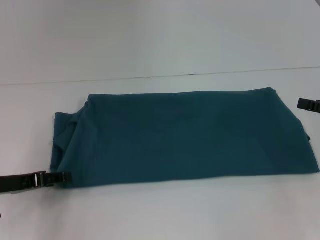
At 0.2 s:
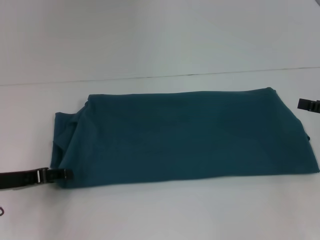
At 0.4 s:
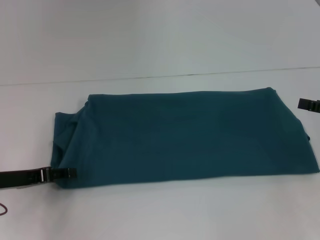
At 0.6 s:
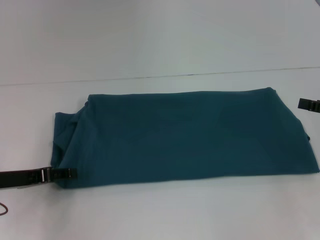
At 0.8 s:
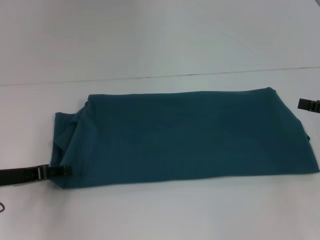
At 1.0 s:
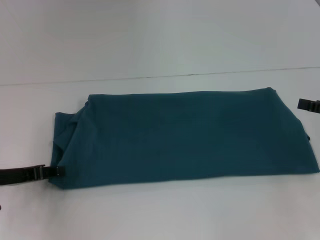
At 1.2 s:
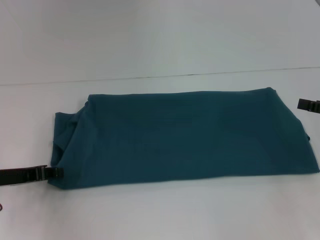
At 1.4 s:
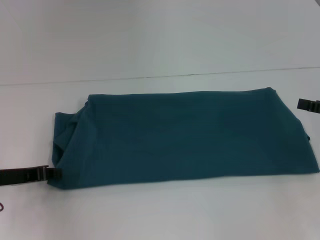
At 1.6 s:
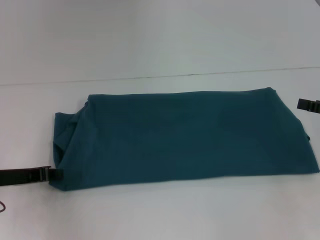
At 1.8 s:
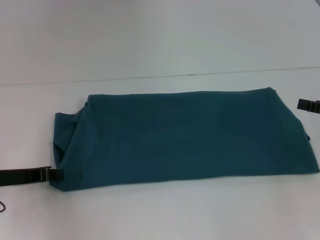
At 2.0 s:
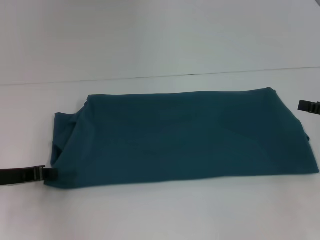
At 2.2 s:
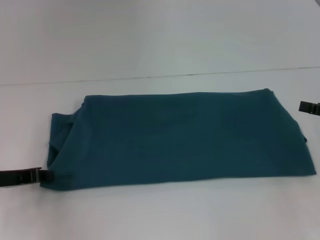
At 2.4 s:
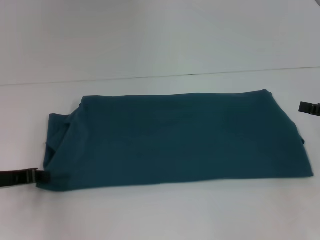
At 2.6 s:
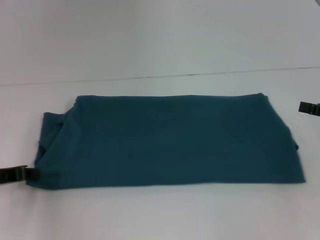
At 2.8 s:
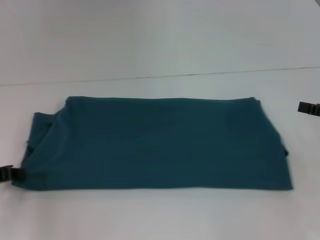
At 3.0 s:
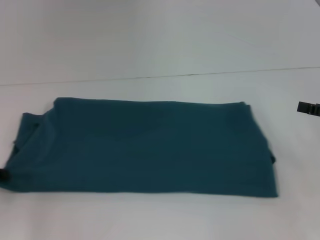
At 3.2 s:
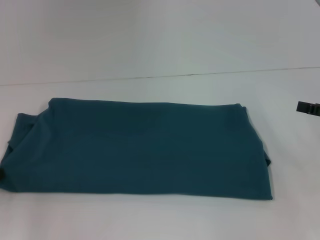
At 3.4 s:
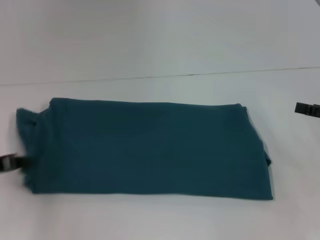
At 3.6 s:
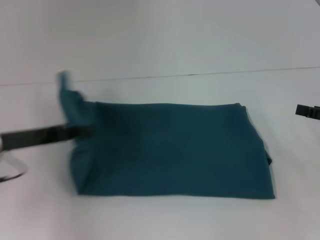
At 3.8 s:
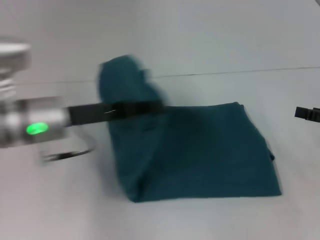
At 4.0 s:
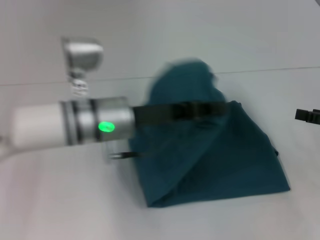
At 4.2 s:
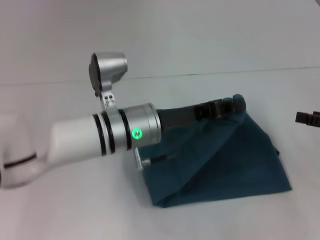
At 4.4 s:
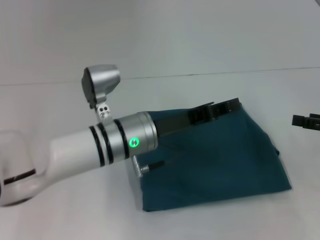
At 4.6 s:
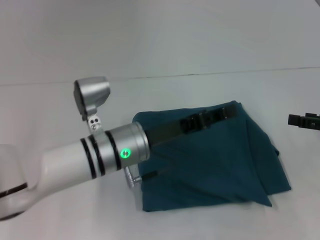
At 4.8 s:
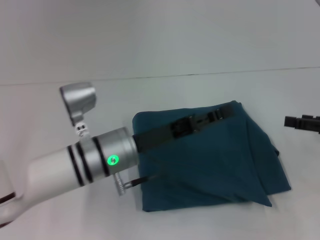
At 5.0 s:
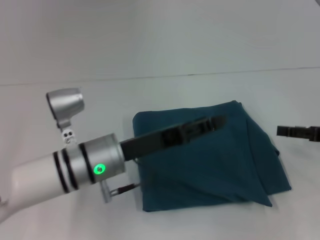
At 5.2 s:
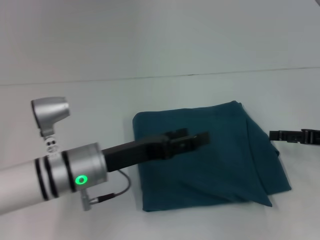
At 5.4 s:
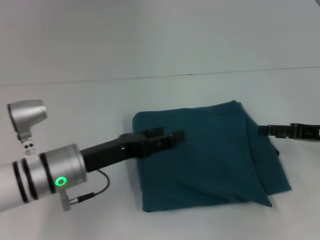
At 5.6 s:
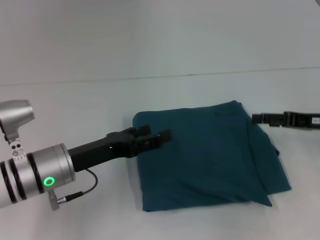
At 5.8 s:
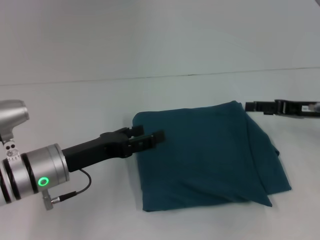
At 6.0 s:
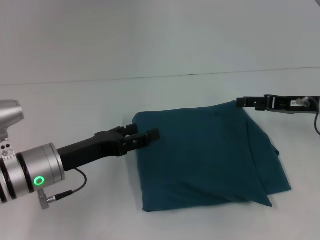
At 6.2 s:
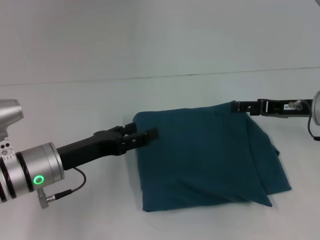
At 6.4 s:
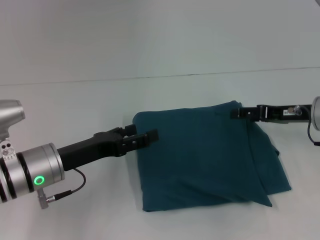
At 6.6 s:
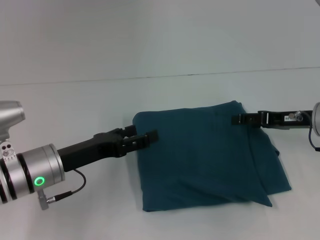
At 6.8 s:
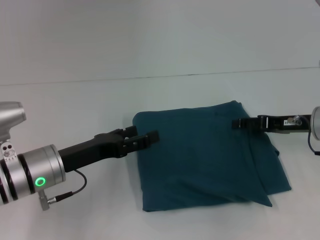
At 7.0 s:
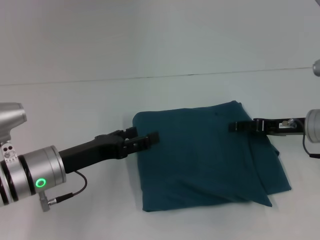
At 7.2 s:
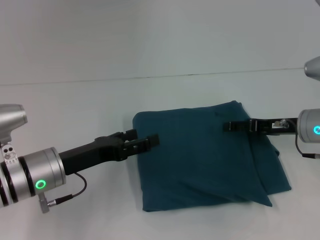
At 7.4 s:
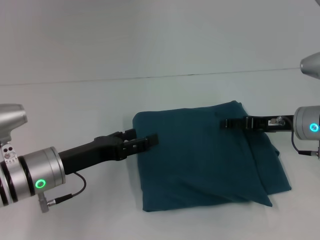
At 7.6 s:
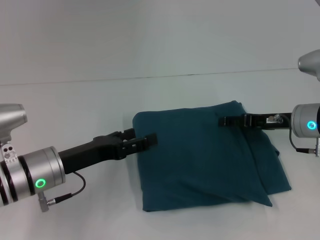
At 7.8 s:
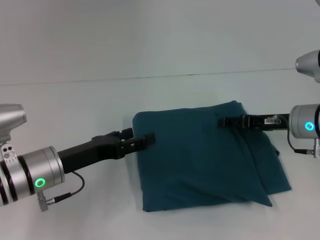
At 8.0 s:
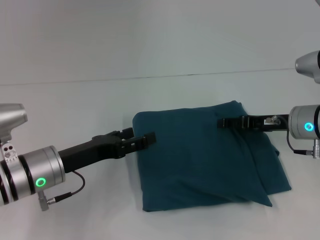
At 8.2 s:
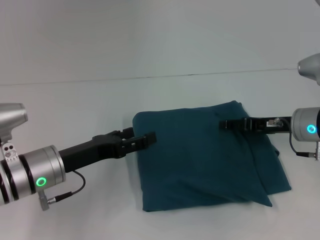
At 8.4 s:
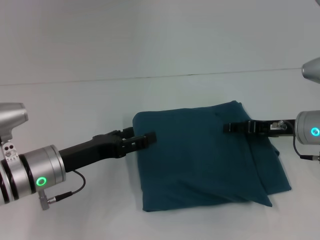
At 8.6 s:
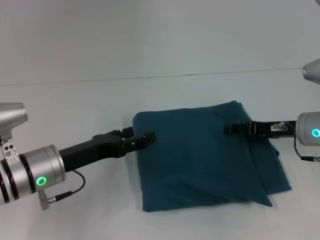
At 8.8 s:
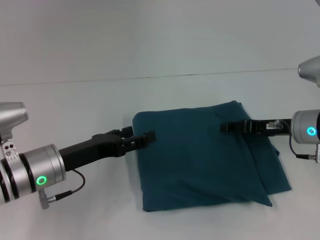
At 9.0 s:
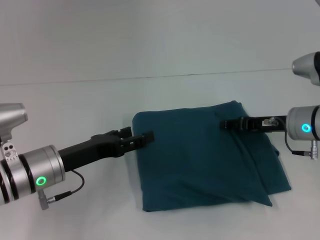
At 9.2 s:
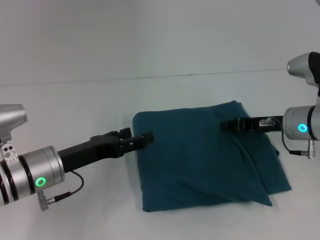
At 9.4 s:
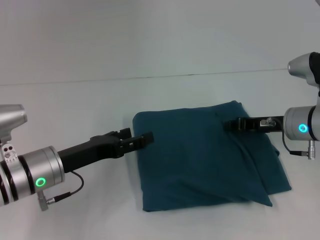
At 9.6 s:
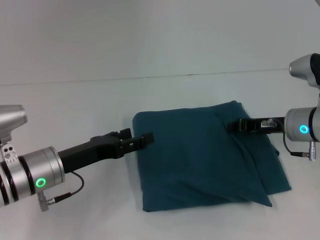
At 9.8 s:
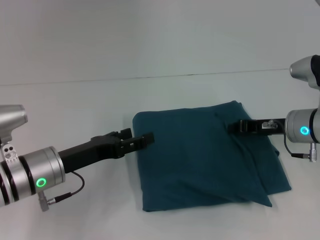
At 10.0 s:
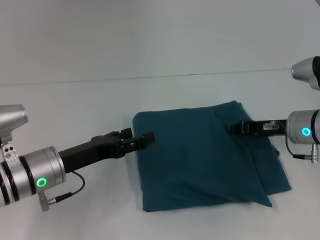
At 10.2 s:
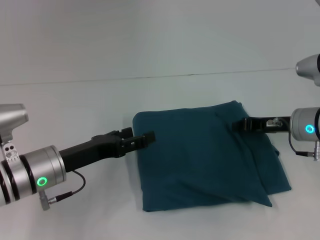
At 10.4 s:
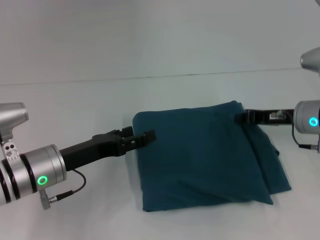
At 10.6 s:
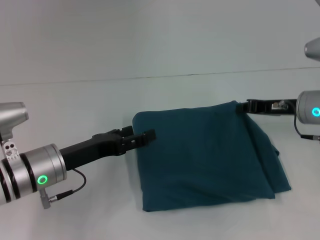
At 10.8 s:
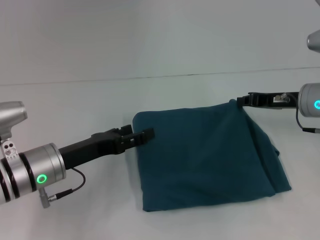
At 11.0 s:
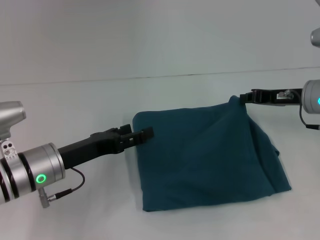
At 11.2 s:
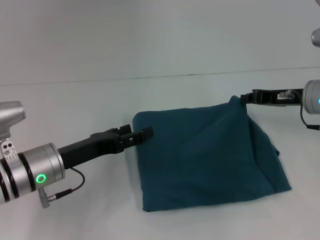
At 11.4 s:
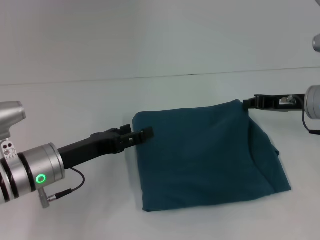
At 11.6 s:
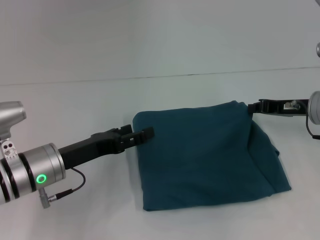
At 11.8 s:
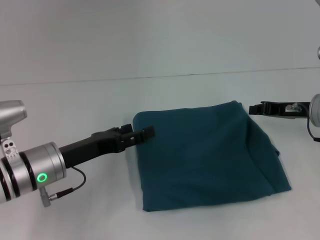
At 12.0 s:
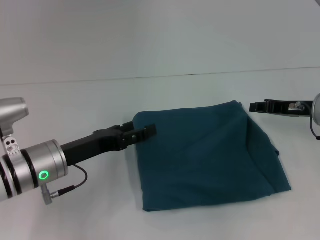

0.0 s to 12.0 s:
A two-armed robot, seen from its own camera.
Step, 0.0 to 4.6 s: Fold the clothes to the left.
0.0 to 1.6 s: The left gripper closes its fingers.
1.6 to 3.0 s: The left gripper heads to the left, covering approximately 5 cm.
3.0 to 4.4 s: The left gripper shifts roughly 30 cm to the right.
4.4 to 6.0 s: The left gripper is displaced to the left by roughly 15 cm, and opens its fingers. Meanwhile the right gripper moves forward and to the left, approximately 10 cm.
6.0 to 7.6 s: The grippers move only a little.
7.6 to 9.0 s: Both grippers stay about where they are.
9.0 to 10.4 s: The right gripper closes its fingers.
10.4 to 12.0 s: The grippers stay close to where they were, moving slightly.

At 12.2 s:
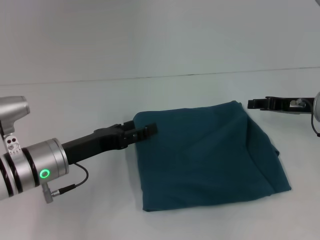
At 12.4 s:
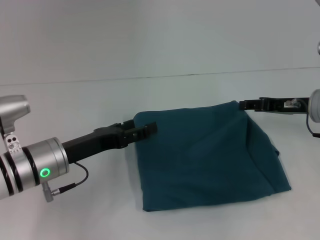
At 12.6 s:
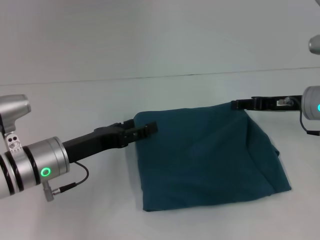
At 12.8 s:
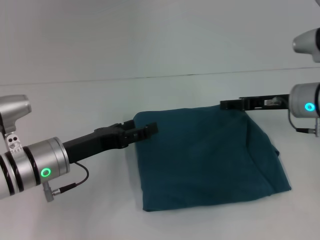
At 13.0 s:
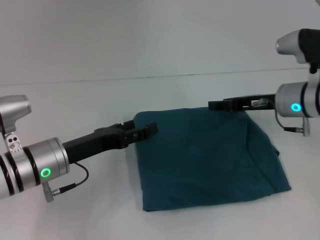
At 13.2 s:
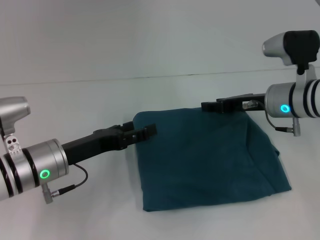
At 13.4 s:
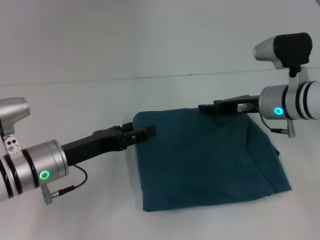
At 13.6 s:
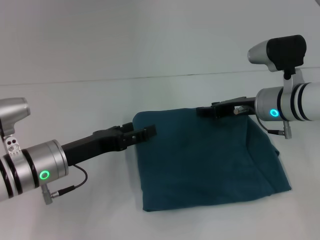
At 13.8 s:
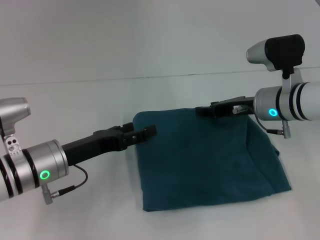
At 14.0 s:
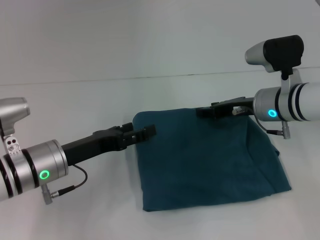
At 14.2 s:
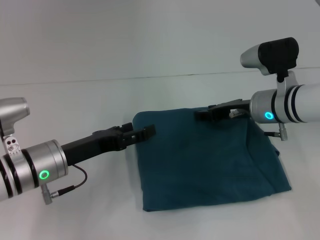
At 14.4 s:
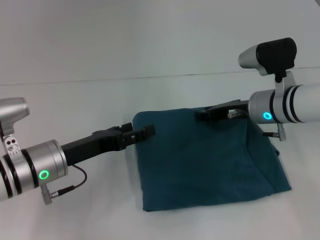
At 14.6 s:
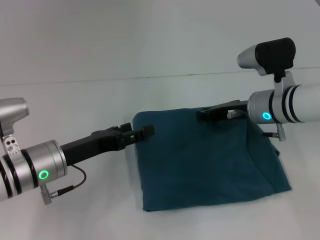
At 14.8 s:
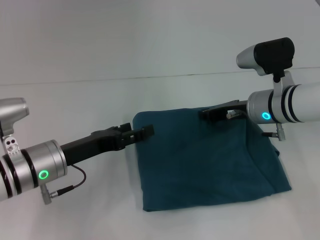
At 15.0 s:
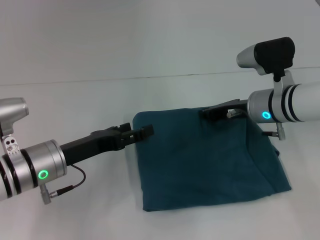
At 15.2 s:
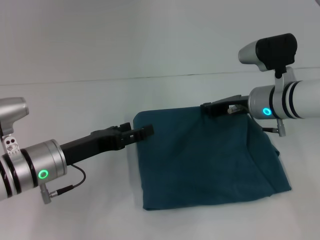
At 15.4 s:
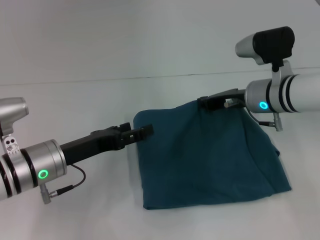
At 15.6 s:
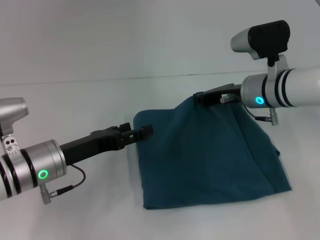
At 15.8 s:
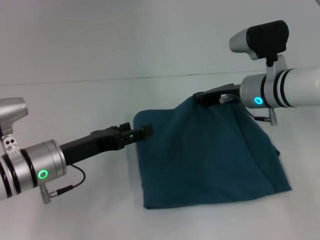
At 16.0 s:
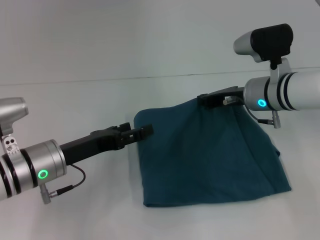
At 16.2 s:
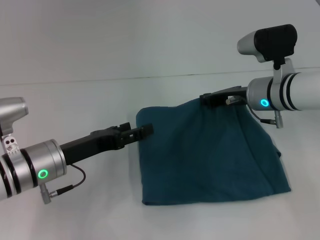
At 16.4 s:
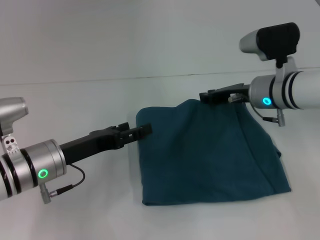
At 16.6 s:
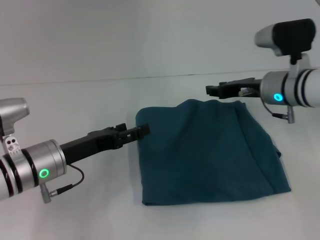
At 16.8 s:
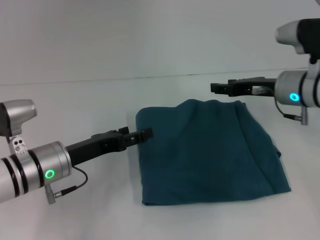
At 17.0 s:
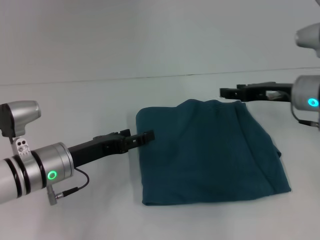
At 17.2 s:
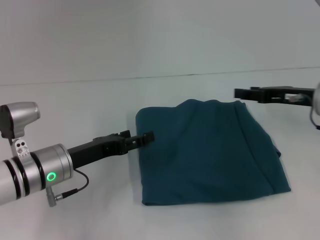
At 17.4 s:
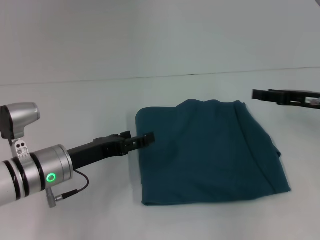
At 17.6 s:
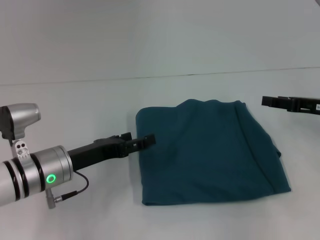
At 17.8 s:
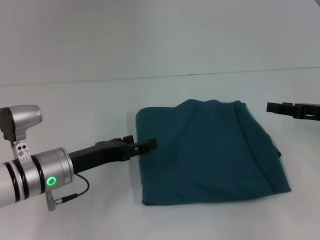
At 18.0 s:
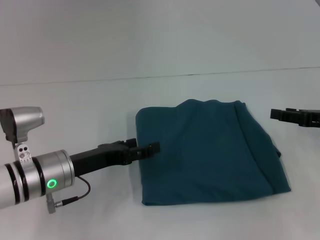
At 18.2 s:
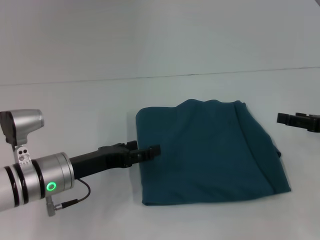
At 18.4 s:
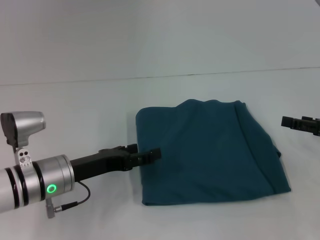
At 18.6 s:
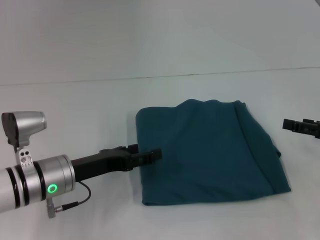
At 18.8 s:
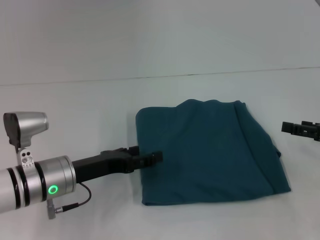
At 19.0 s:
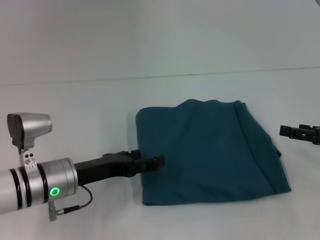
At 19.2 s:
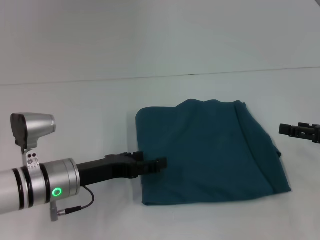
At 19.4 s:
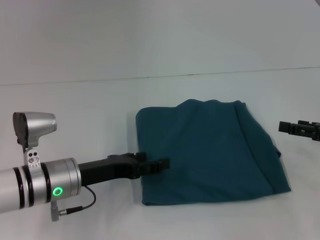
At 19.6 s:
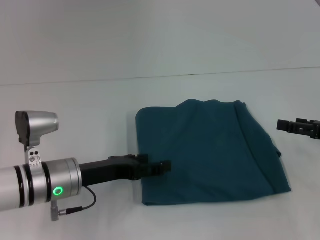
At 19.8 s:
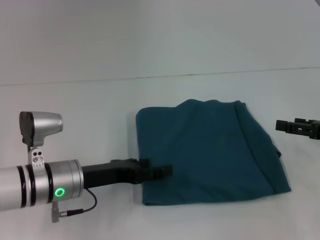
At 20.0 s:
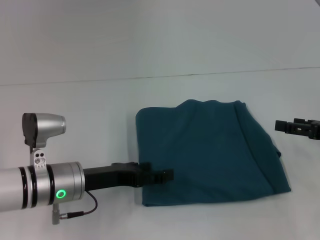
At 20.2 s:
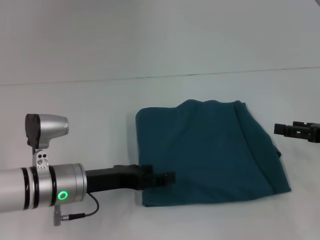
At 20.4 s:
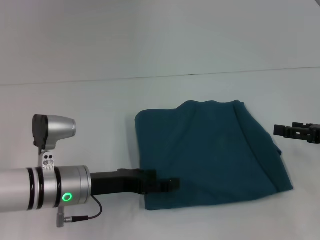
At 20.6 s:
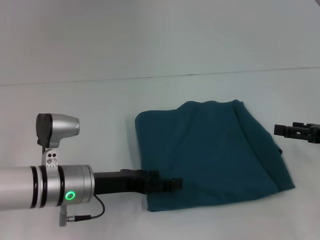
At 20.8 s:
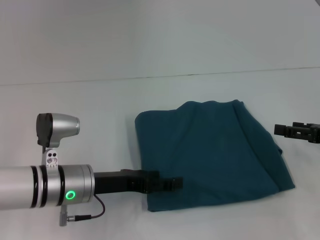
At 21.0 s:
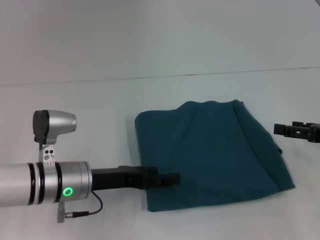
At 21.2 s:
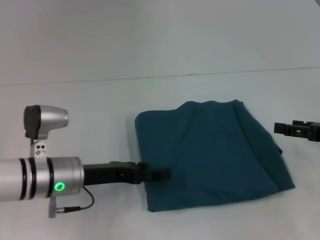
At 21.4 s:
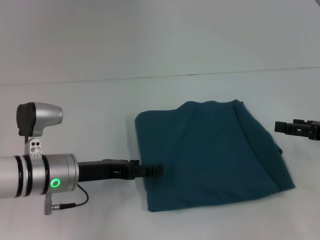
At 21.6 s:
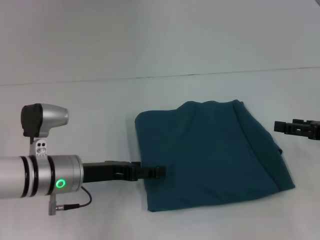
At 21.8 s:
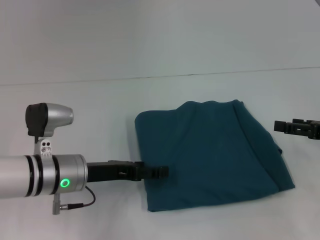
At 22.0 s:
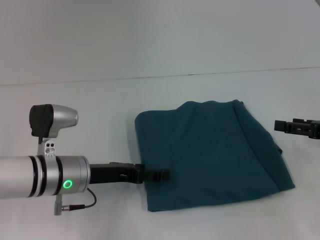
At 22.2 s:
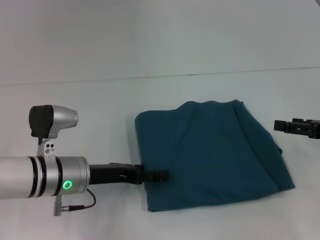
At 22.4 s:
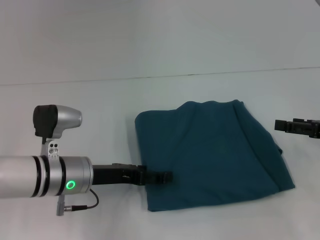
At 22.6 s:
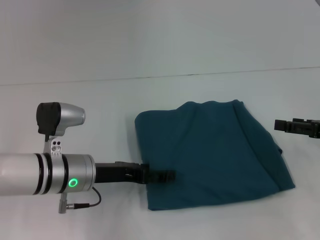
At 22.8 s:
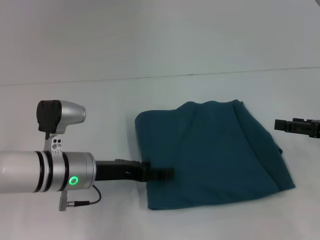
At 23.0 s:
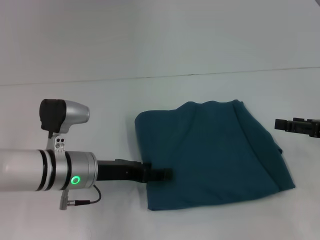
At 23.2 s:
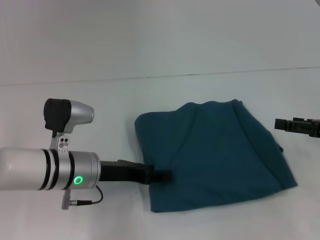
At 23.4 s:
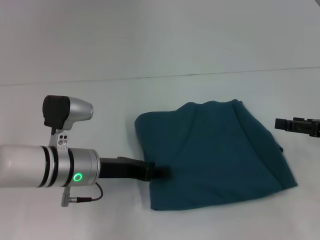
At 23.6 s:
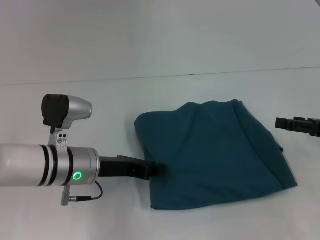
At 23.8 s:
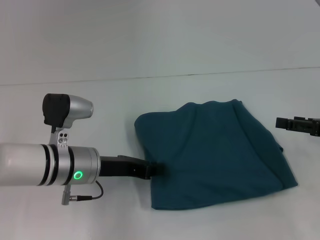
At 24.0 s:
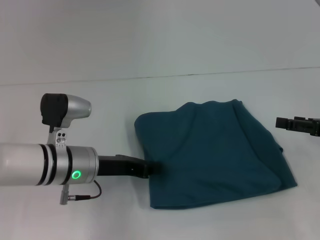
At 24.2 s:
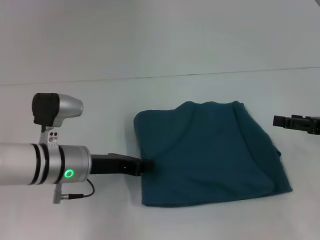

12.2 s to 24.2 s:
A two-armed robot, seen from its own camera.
12.2 to 13.8 s: The right gripper travels to the left by about 10 cm.
13.8 to 15.2 s: The right gripper closes up.
15.2 to 16.6 s: The grippers stay close to where they were, moving slightly.
16.6 to 18.2 s: The right gripper heads to the right and backward, covering roughly 20 cm, and opens up.
18.2 to 22.6 s: The grippers make only small movements.
22.6 to 24.2 s: The left gripper closes its fingers.
